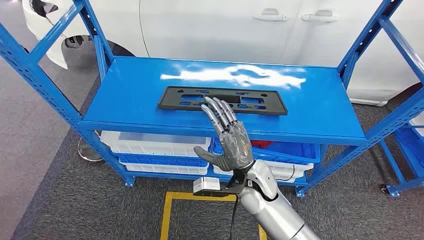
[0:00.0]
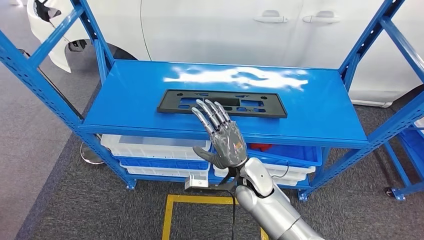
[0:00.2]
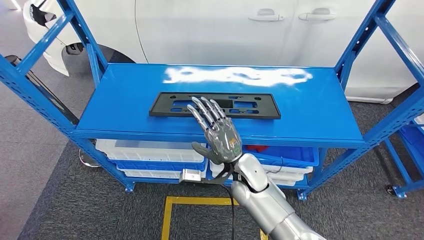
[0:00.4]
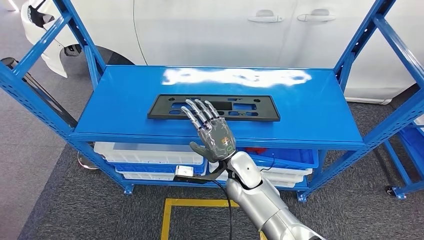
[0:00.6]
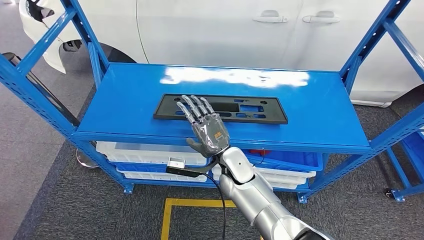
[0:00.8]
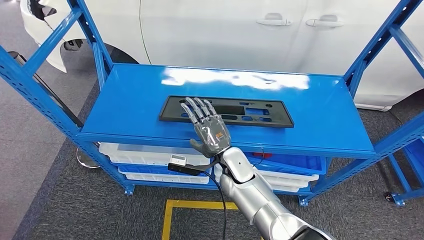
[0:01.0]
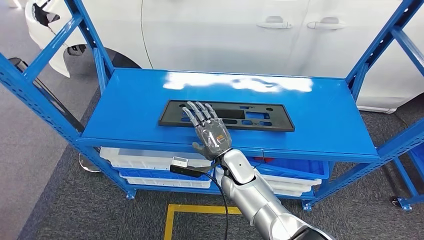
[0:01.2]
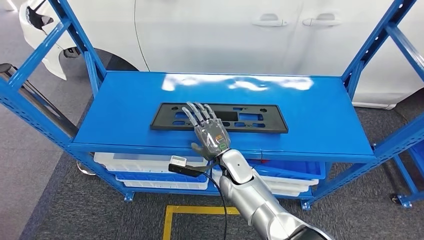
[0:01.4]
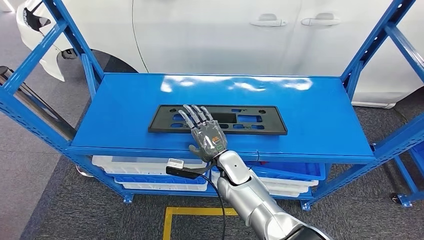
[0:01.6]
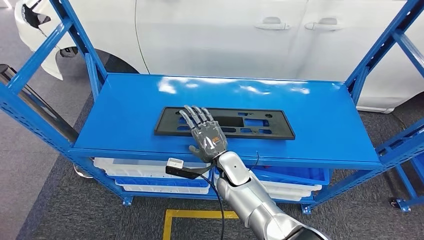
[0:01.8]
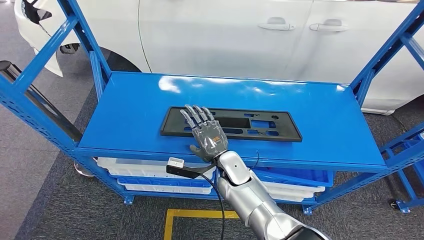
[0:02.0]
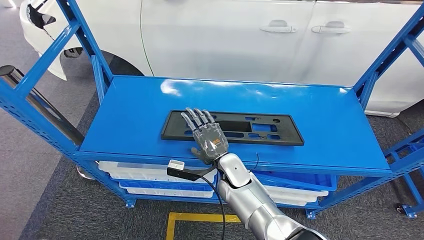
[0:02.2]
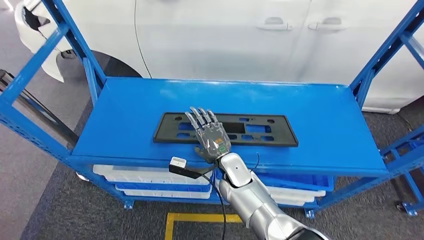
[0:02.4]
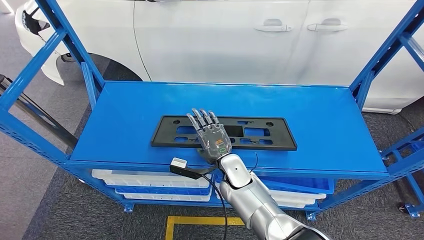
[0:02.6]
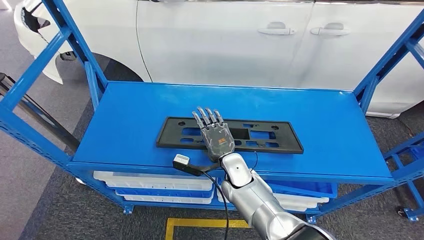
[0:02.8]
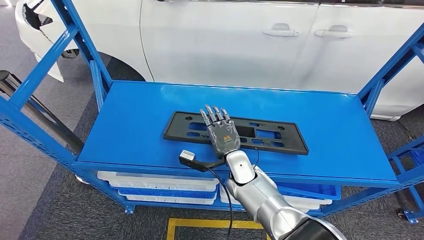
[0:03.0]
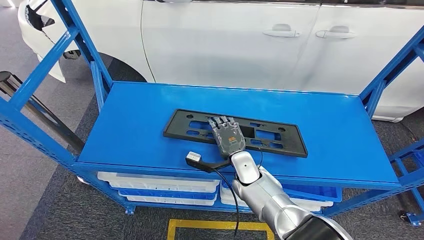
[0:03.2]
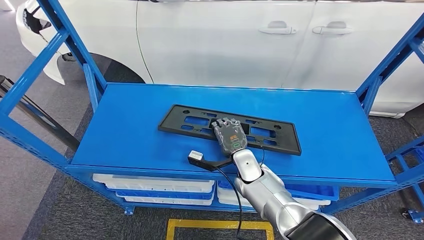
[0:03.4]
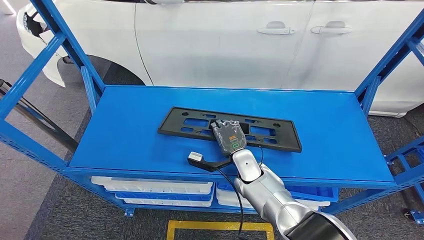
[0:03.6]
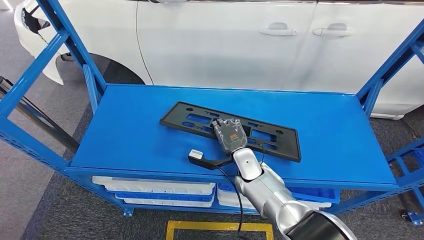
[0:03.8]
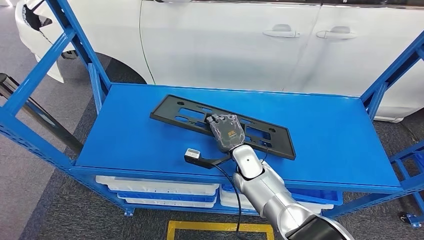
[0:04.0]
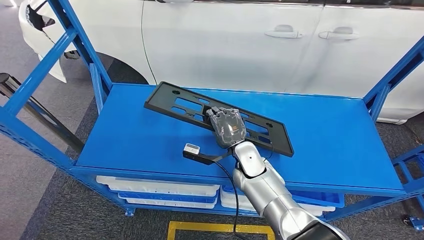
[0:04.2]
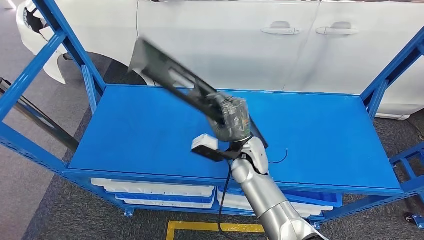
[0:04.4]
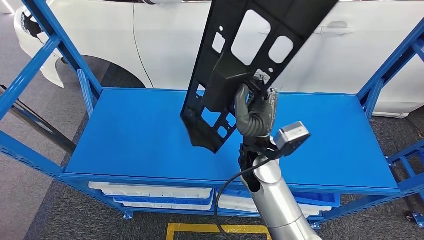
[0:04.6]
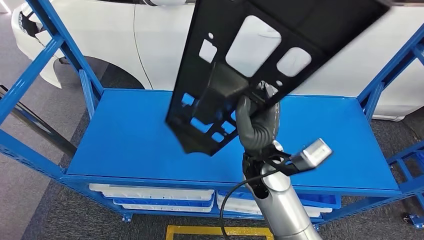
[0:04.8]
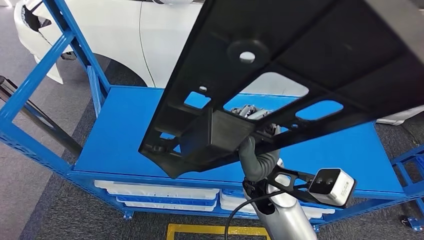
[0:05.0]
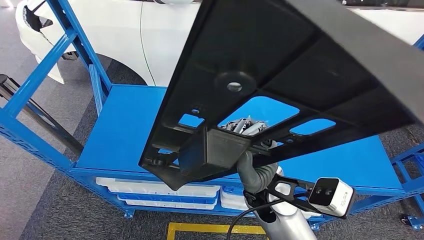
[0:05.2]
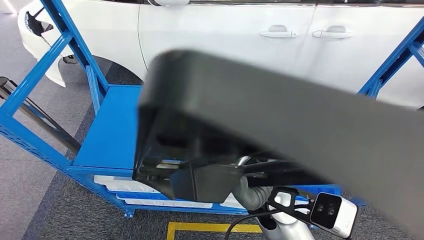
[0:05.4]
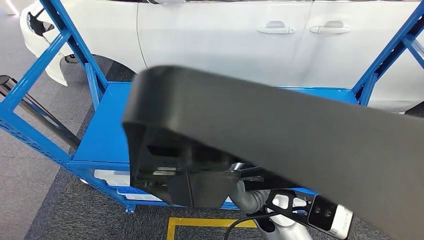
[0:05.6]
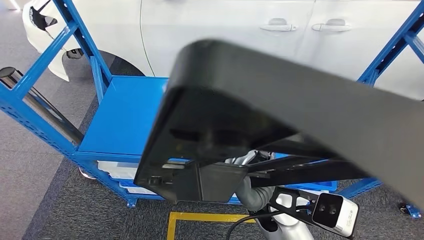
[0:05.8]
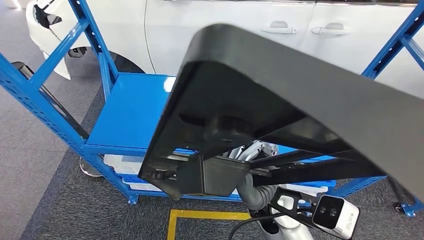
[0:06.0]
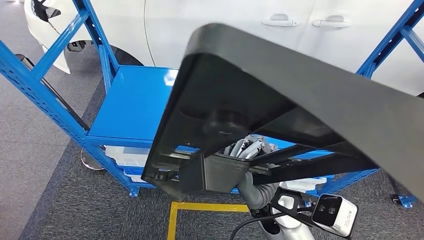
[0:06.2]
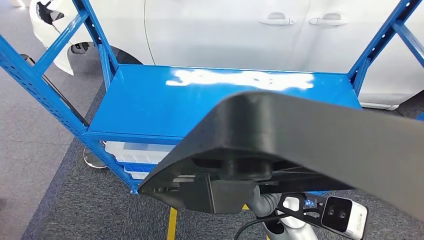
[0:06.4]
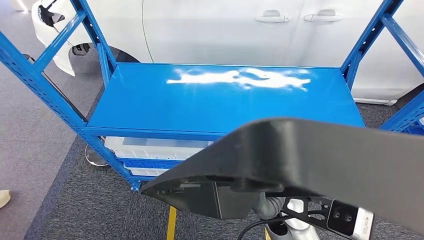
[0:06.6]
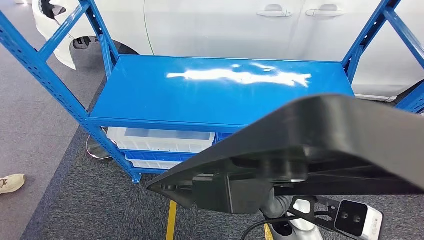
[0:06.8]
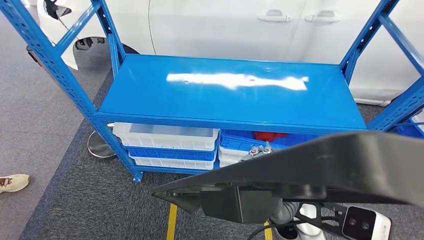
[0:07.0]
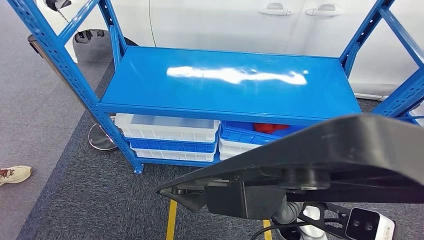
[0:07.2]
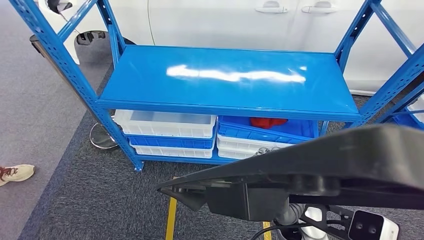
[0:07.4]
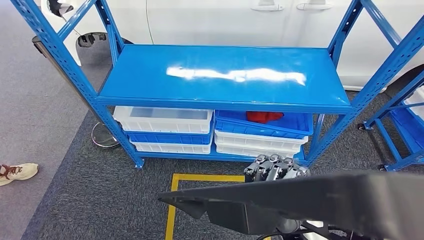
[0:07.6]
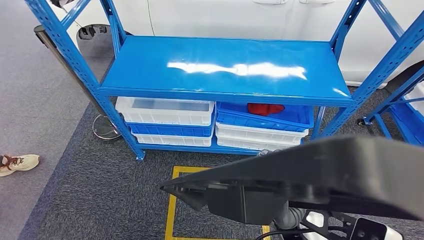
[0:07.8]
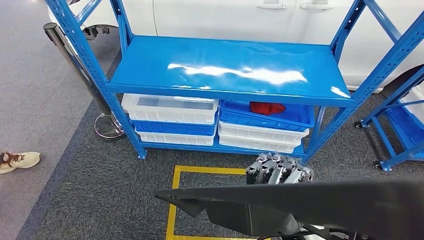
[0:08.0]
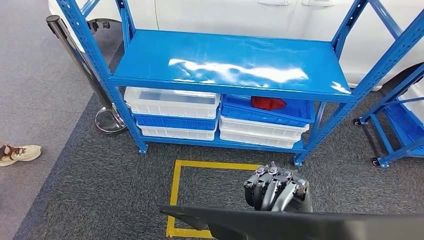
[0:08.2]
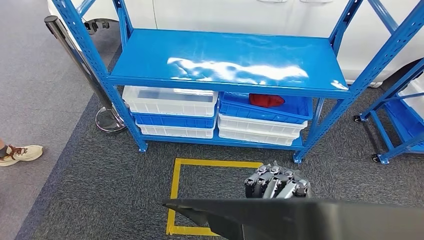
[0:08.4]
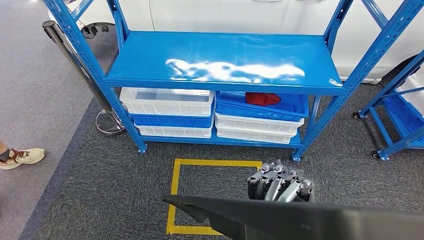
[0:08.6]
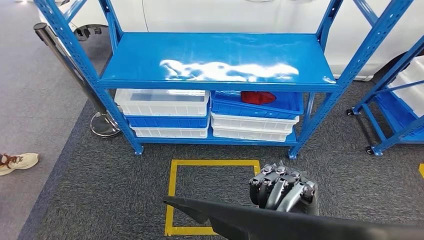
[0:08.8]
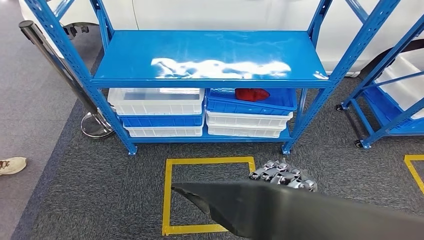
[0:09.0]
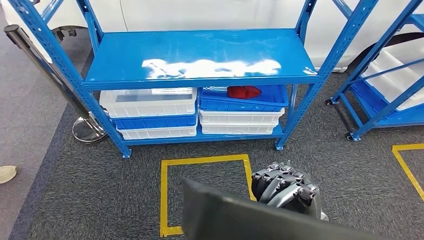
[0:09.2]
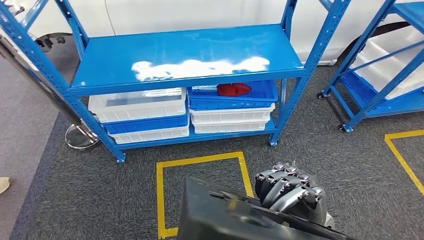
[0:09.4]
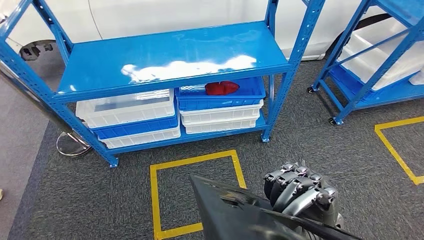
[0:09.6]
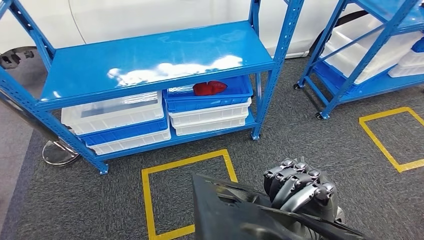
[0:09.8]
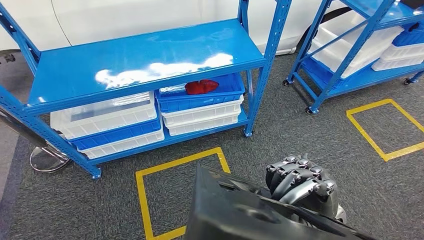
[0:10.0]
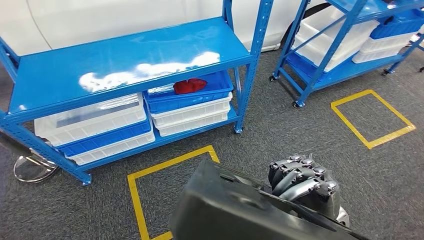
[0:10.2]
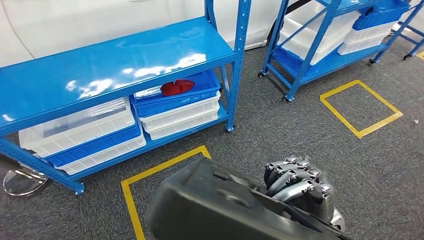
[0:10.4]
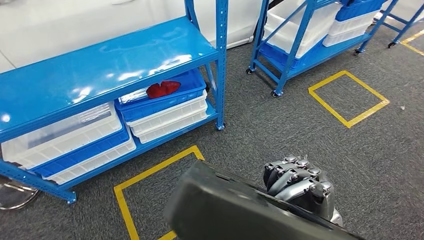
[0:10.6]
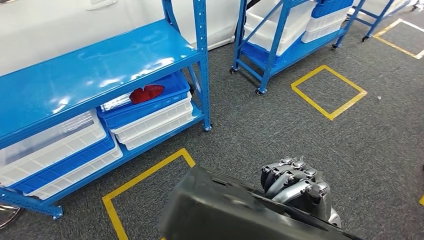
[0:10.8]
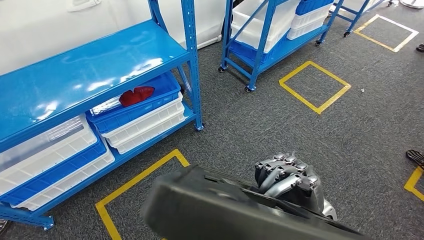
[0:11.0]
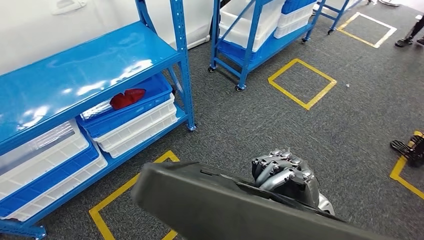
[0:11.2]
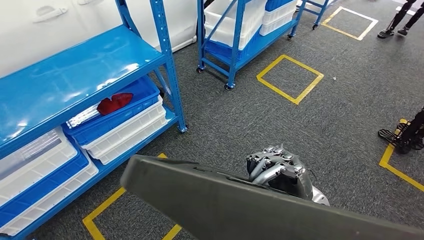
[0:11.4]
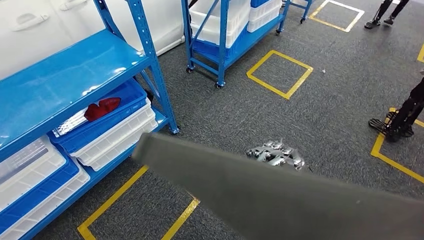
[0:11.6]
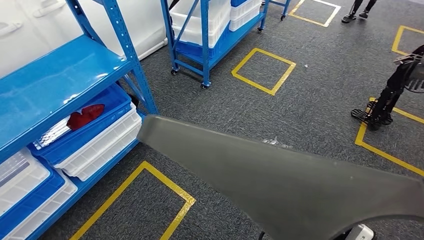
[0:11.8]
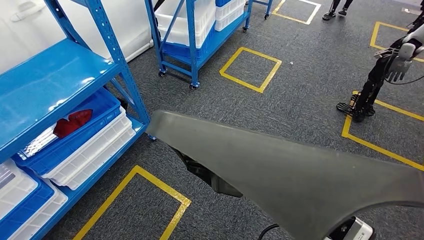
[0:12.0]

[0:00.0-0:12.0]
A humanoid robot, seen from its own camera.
Step, 0:00.0 to 0:05.2: Pick up the small parts from the shelf.

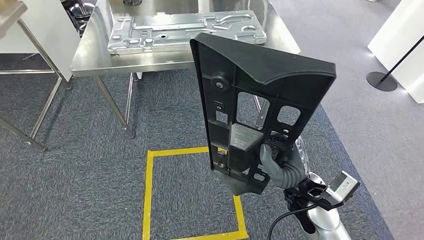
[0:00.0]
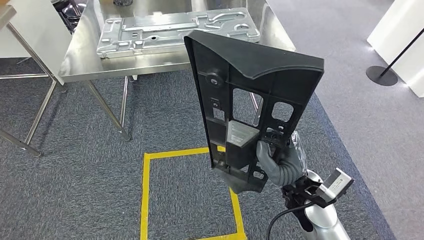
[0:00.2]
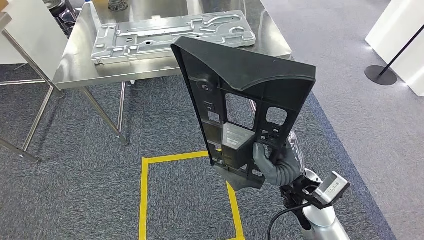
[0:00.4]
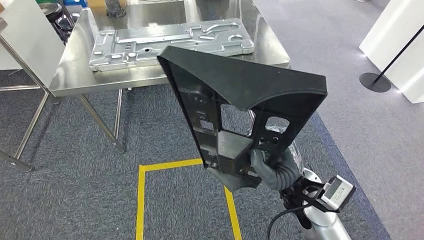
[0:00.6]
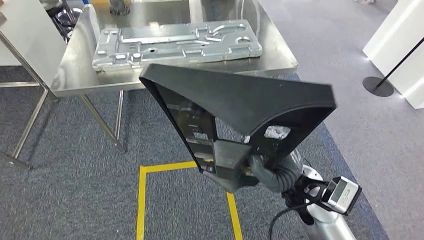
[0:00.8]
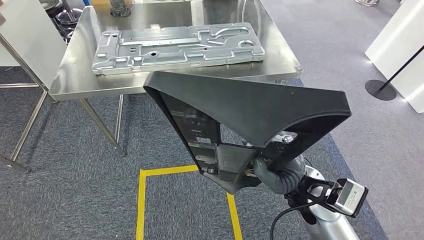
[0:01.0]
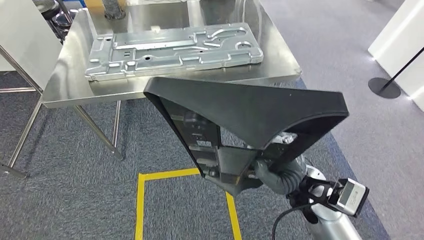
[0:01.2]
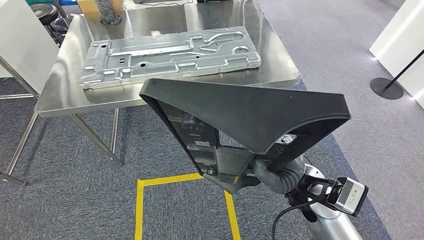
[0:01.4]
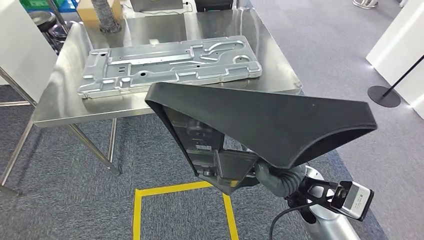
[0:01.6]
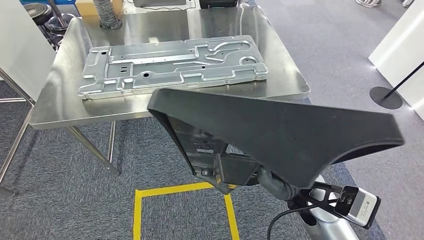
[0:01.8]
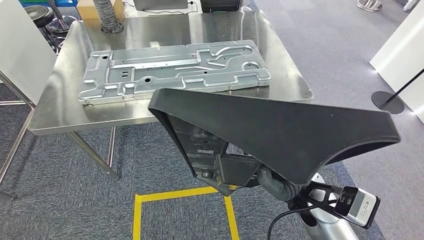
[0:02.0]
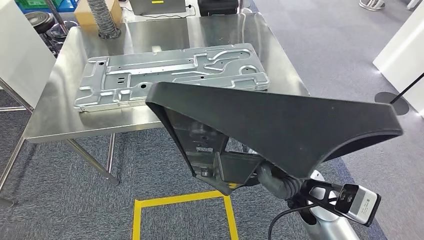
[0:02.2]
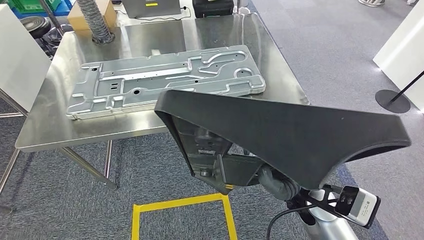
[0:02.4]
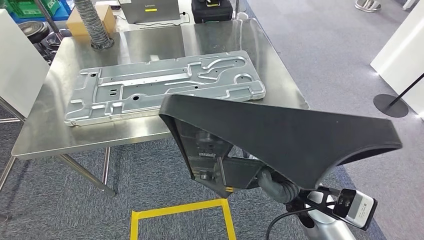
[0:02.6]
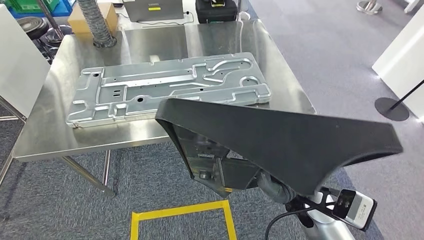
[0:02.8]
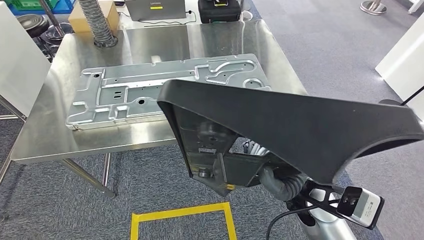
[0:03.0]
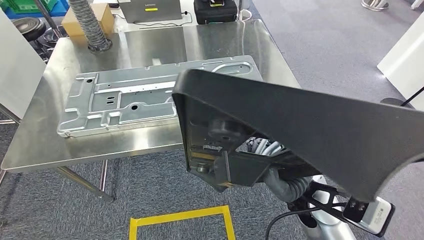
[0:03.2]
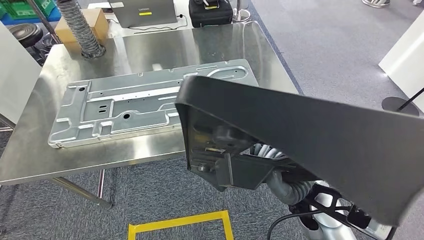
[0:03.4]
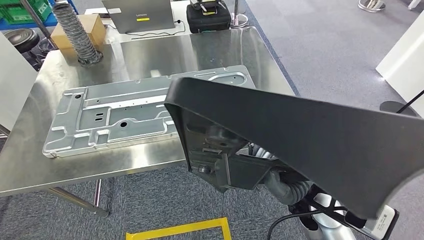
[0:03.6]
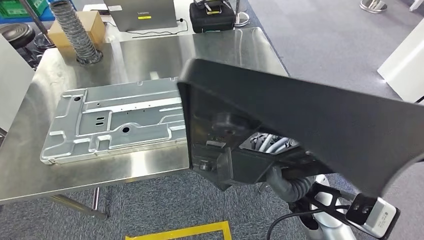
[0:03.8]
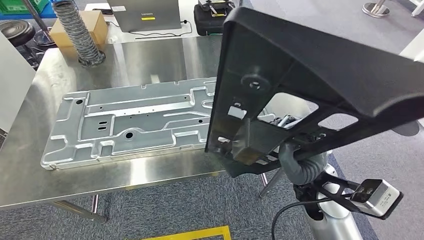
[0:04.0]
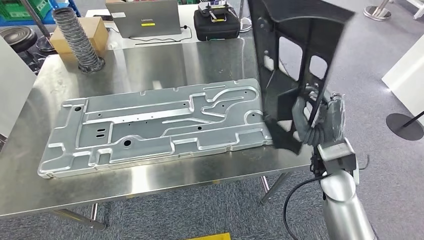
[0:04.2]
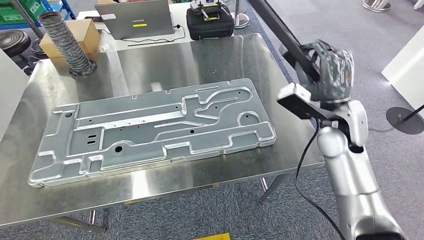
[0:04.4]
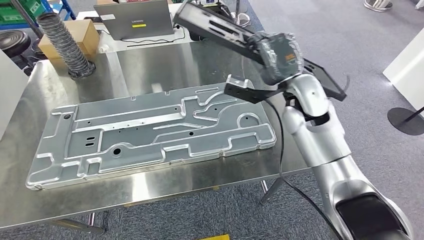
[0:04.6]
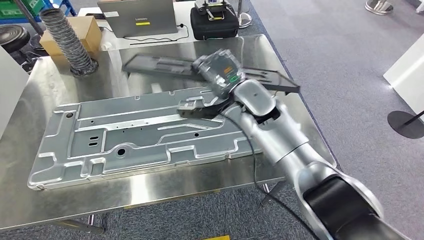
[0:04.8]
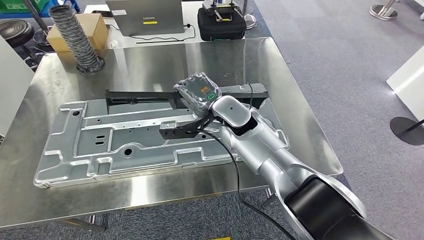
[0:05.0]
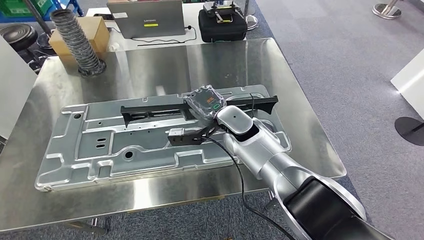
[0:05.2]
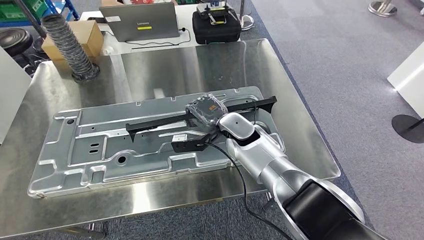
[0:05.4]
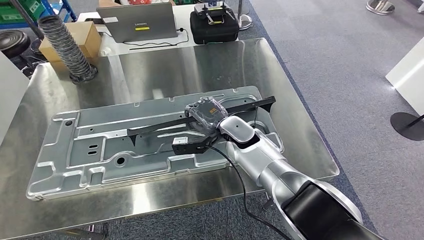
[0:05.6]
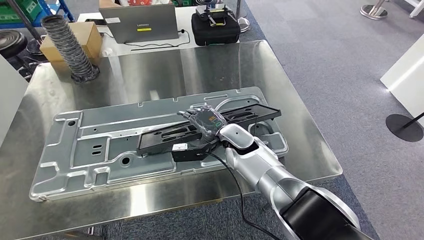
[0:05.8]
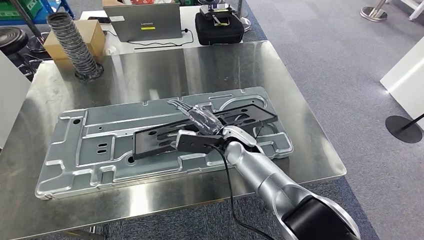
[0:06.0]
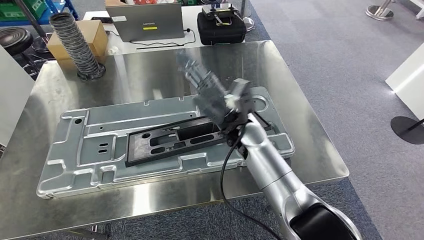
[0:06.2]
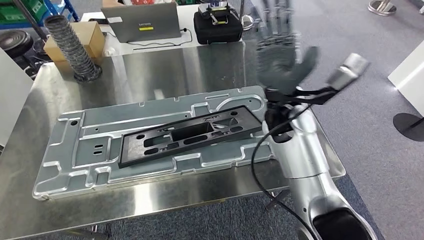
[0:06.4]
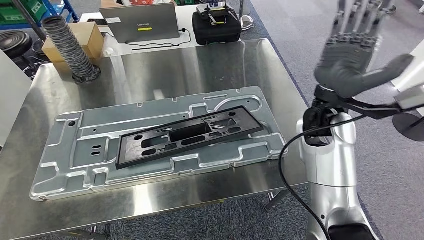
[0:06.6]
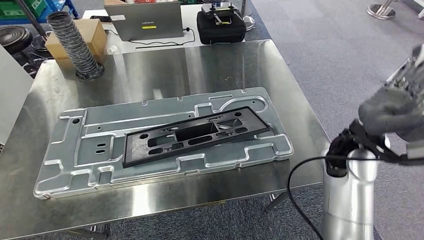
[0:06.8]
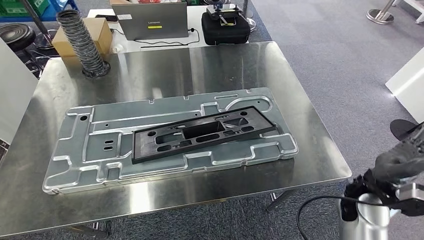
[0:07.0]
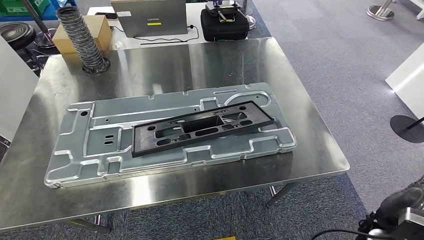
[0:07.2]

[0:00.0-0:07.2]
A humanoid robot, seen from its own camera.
Step, 0:00.0 to 0:02.2: Move the small parts to the workbench.
